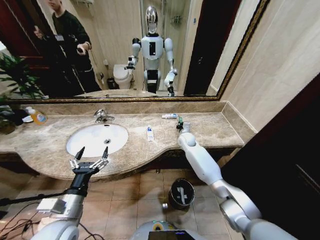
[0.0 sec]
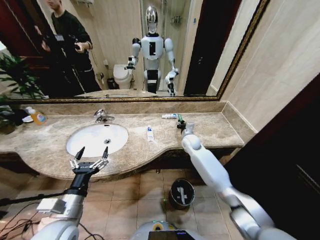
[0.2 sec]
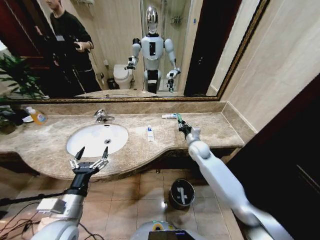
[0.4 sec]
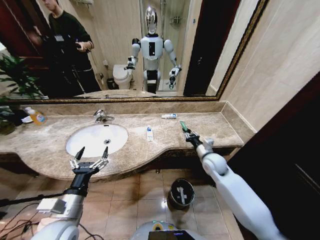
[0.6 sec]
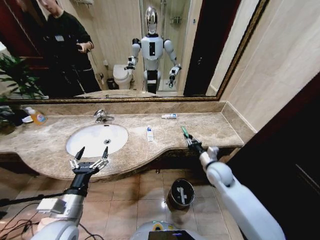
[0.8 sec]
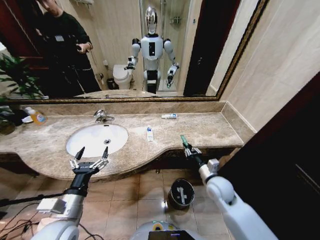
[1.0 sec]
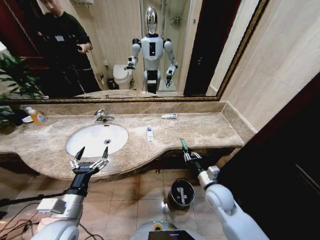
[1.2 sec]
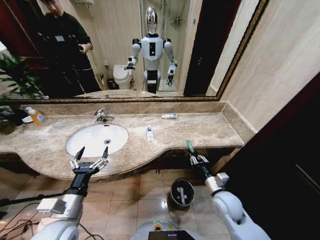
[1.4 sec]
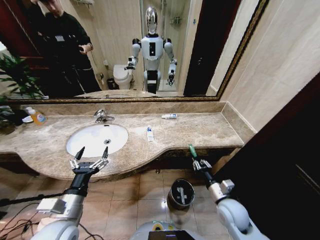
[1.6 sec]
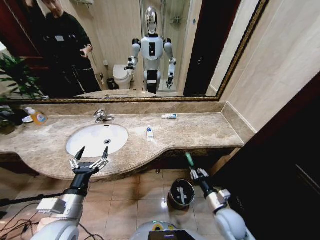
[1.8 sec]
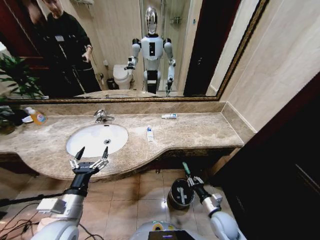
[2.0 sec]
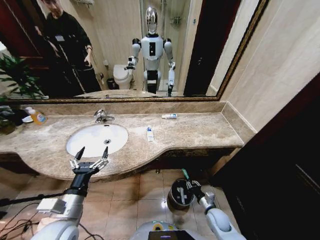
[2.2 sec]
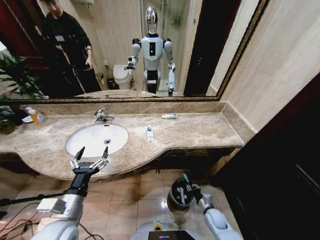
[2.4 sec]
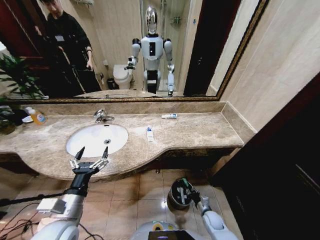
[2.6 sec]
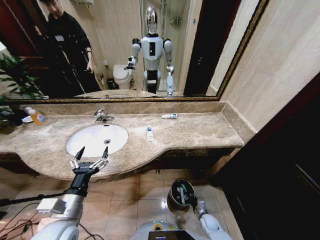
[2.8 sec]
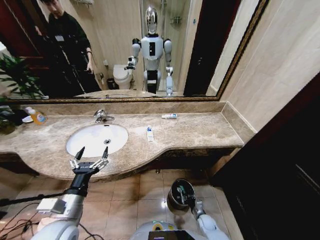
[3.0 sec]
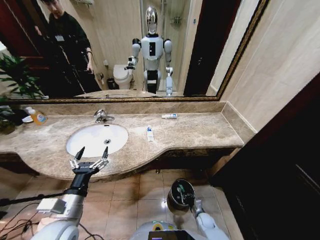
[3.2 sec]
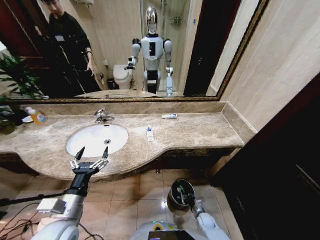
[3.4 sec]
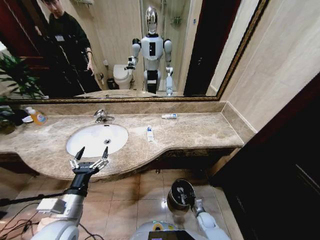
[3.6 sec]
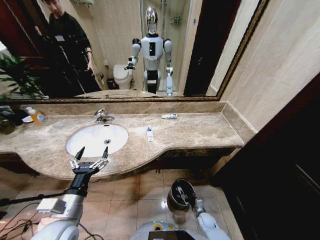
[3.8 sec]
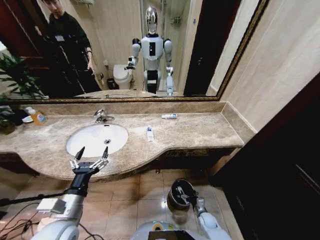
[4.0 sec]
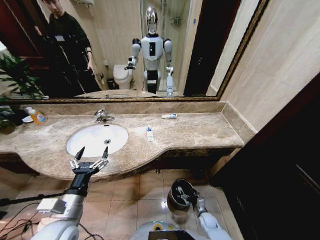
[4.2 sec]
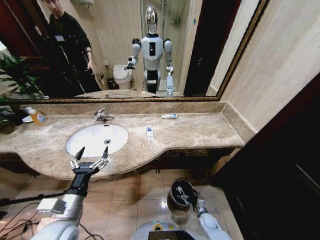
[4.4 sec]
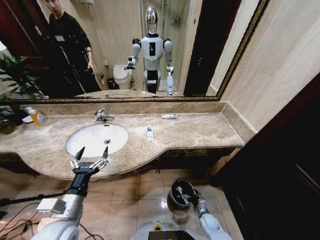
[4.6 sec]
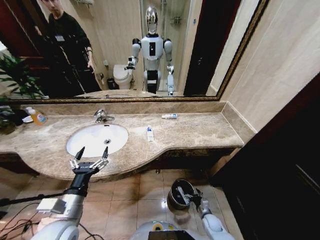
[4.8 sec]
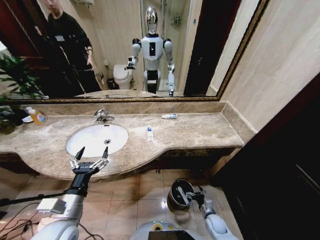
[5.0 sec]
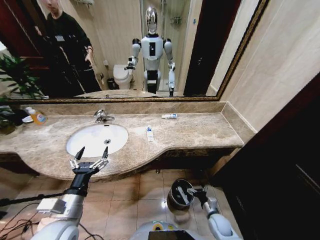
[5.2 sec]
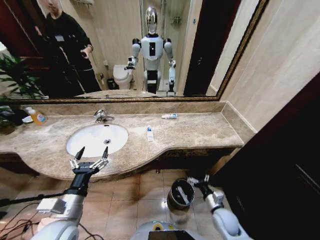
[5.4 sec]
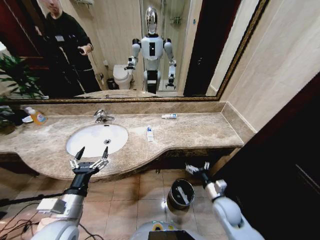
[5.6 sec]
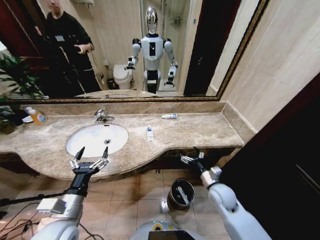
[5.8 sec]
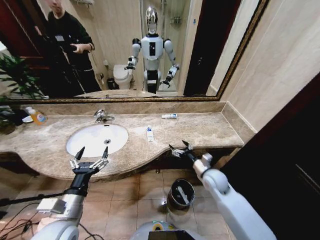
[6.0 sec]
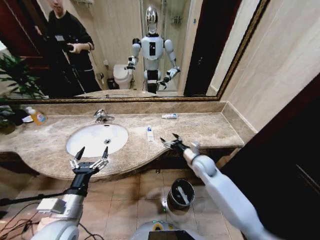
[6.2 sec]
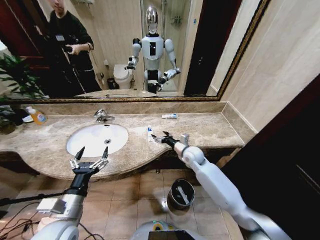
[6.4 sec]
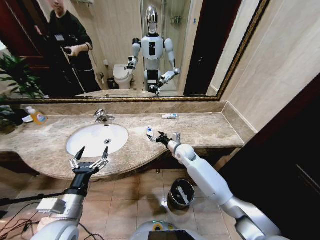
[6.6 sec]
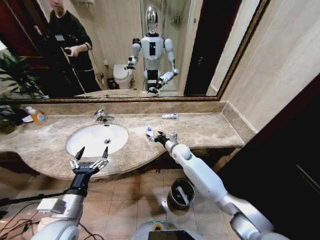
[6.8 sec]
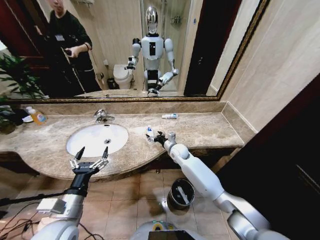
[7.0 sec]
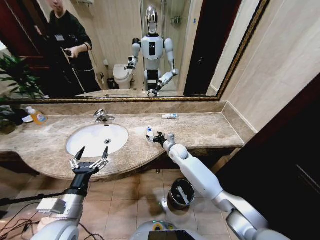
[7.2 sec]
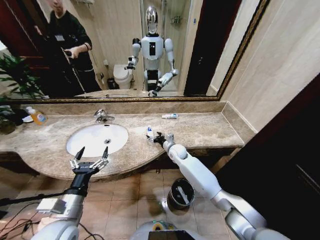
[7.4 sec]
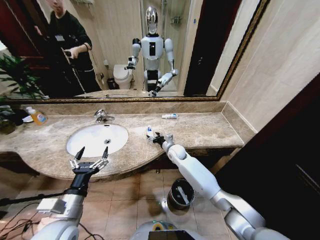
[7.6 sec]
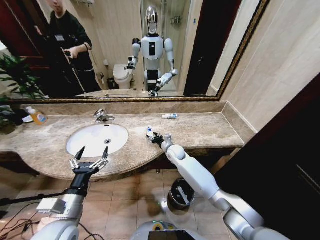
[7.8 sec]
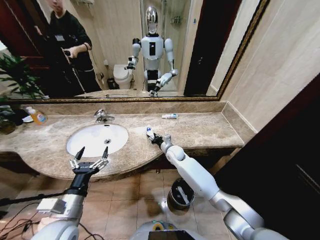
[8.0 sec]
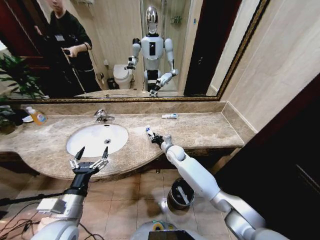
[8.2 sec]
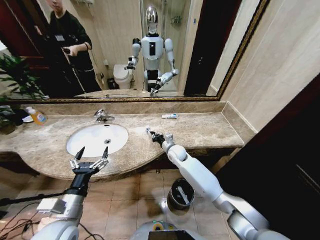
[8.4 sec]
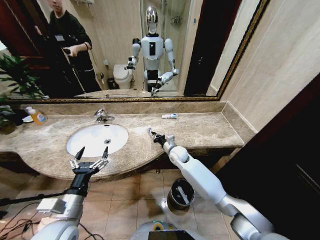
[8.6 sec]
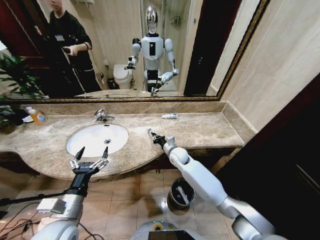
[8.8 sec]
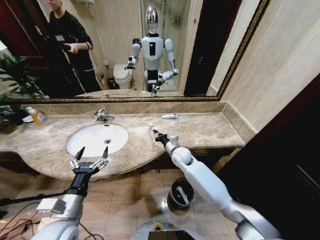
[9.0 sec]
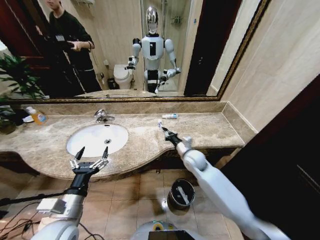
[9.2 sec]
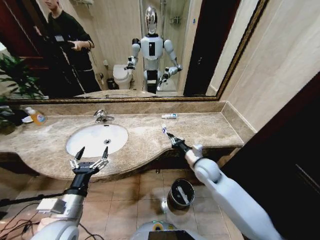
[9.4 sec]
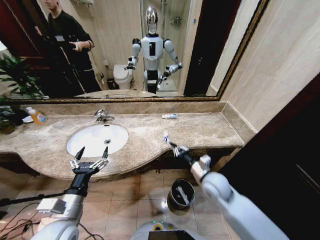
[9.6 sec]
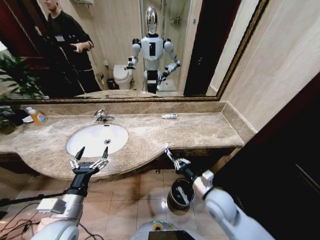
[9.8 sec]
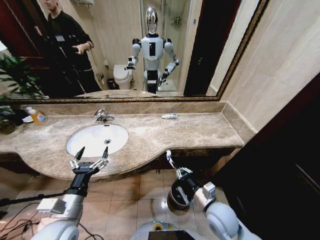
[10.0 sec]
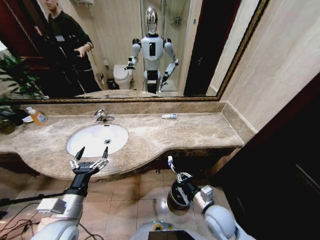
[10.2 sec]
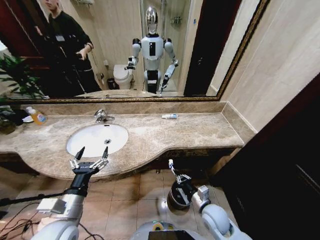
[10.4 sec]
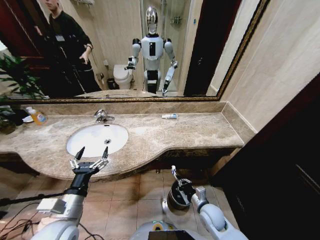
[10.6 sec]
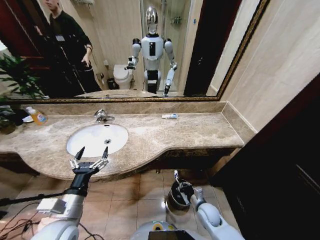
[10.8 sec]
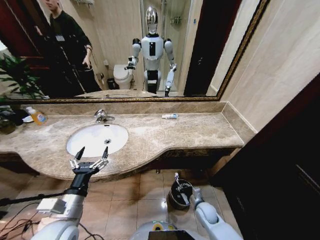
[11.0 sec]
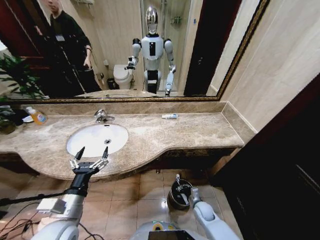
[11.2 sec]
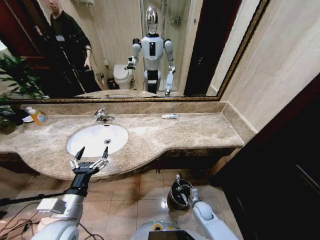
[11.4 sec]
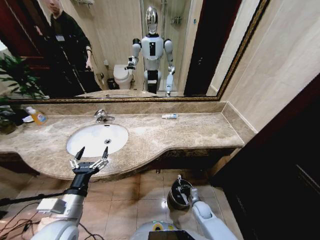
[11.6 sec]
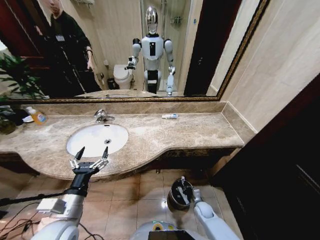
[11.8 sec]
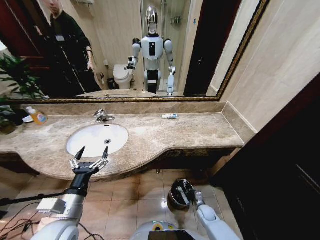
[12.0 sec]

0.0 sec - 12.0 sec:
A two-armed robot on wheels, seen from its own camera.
Task of the whole recording: Pick up the trash from the sink and place it in the trash bin.
0.0 sec - 1.6 sec: The right gripper shifts about 35 cm backward.
1.6 sec - 3.0 sec: The right gripper heads downward, covering about 30 cm.
3.0 sec - 4.4 sec: The right gripper opens.
4.4 sec - 6.0 sec: The right gripper is displaced upward by roughly 30 cm.
6.0 sec - 7.6 sec: The right gripper travels forward and to the left by about 20 cm.
7.6 sec - 9.0 sec: The right gripper changes place by some 5 cm, and closes.
9.0 sec - 10.4 sec: The right gripper travels backward by some 25 cm.
10.4 sec - 12.0 sec: The right gripper heads downward, covering approximately 20 cm.

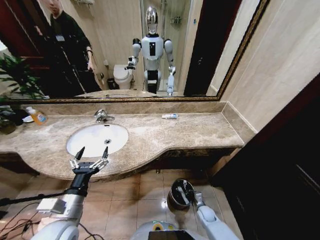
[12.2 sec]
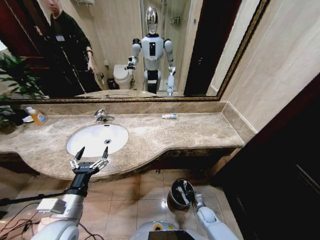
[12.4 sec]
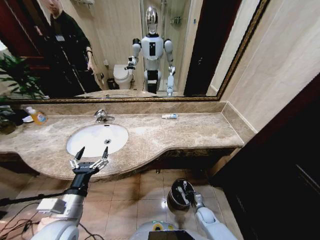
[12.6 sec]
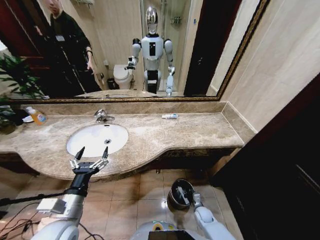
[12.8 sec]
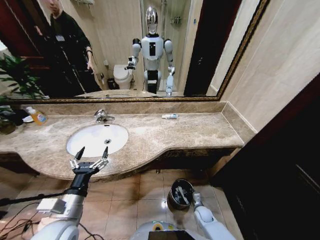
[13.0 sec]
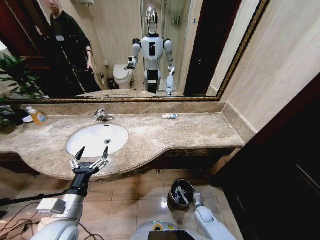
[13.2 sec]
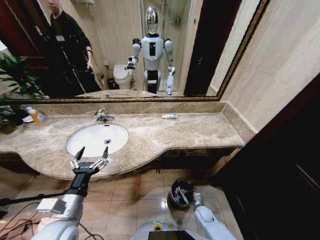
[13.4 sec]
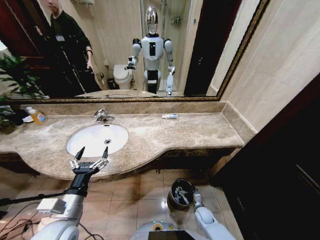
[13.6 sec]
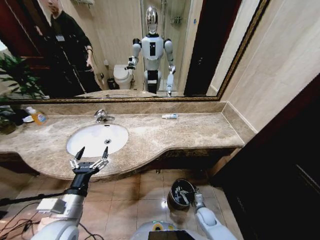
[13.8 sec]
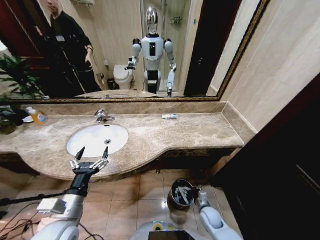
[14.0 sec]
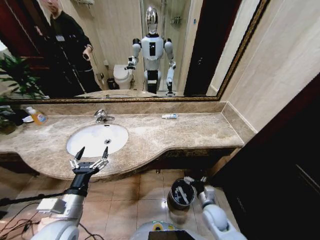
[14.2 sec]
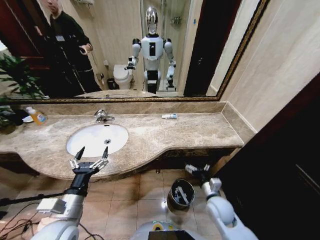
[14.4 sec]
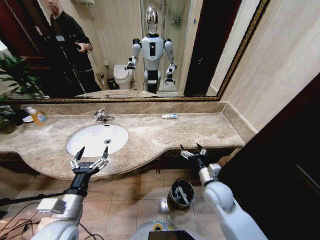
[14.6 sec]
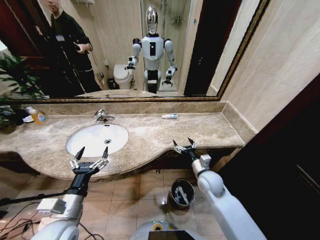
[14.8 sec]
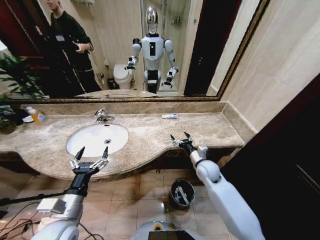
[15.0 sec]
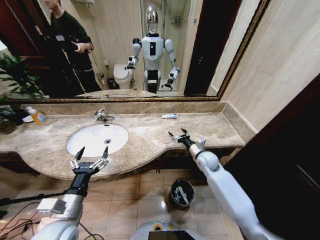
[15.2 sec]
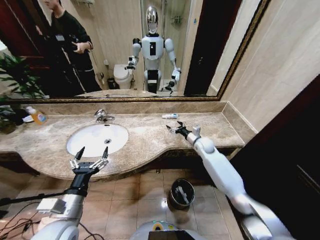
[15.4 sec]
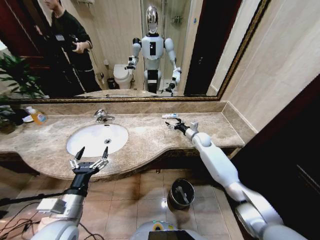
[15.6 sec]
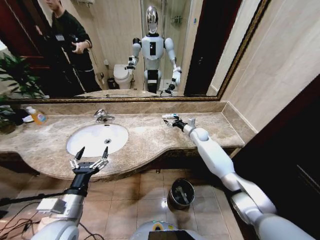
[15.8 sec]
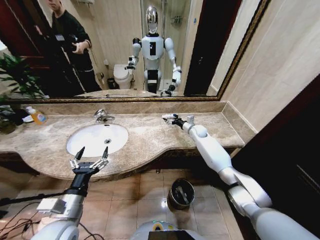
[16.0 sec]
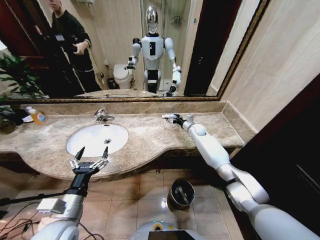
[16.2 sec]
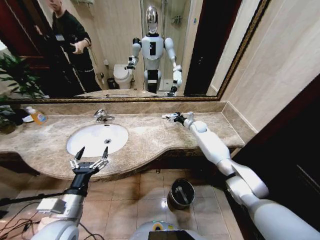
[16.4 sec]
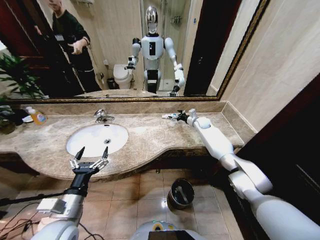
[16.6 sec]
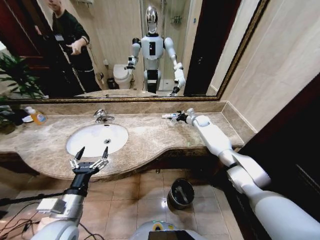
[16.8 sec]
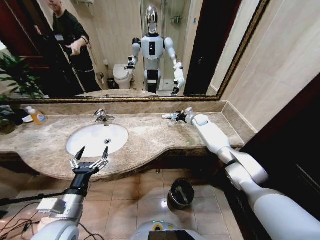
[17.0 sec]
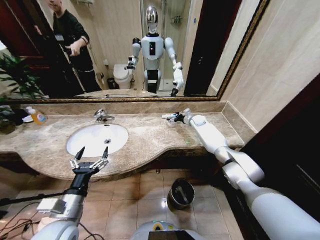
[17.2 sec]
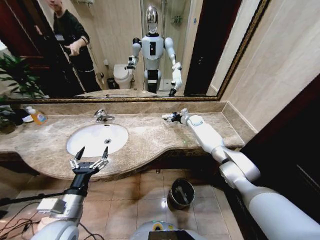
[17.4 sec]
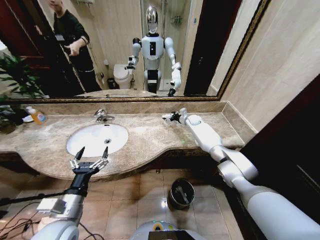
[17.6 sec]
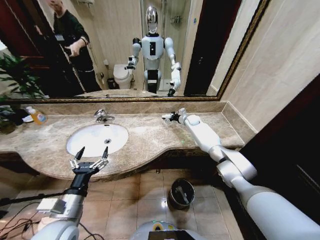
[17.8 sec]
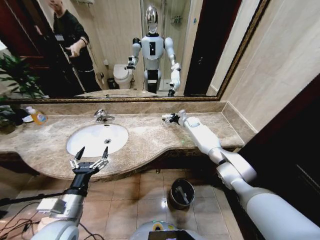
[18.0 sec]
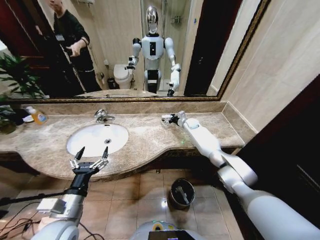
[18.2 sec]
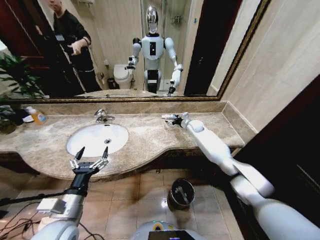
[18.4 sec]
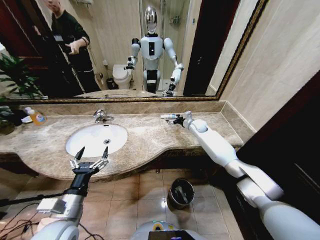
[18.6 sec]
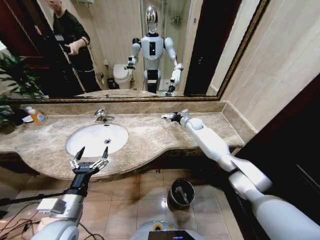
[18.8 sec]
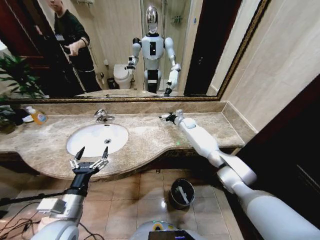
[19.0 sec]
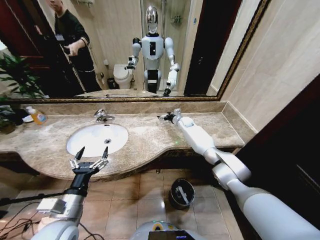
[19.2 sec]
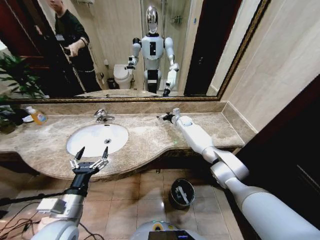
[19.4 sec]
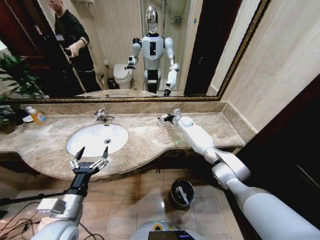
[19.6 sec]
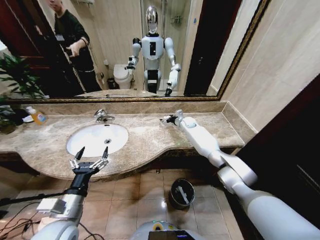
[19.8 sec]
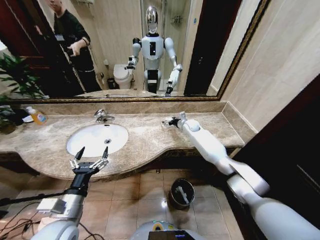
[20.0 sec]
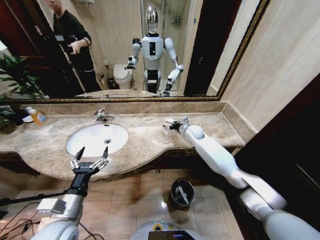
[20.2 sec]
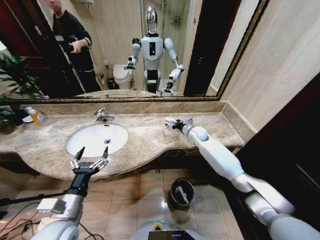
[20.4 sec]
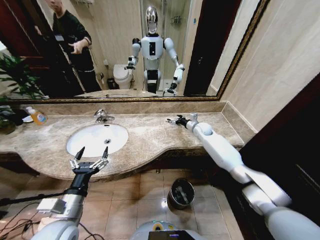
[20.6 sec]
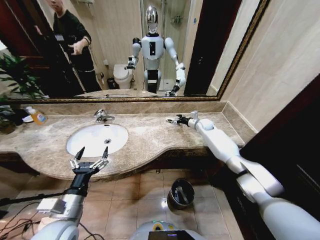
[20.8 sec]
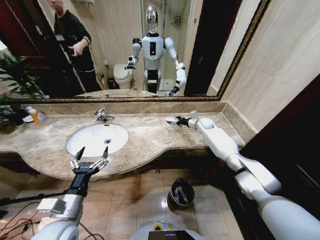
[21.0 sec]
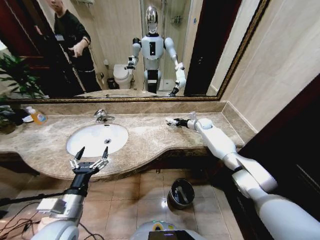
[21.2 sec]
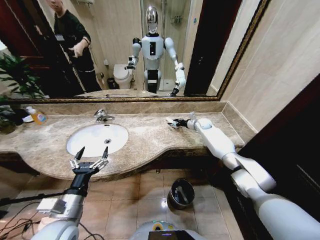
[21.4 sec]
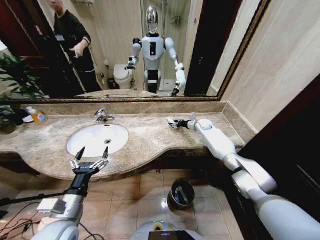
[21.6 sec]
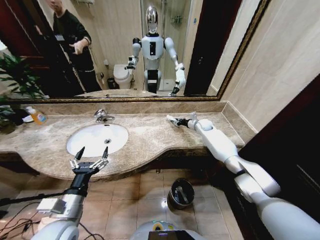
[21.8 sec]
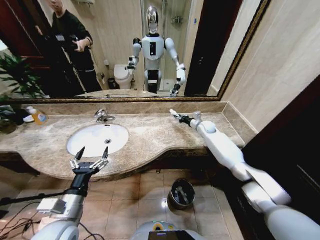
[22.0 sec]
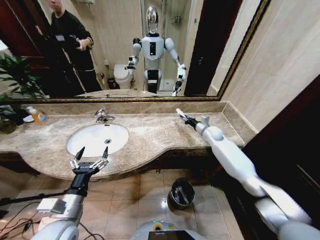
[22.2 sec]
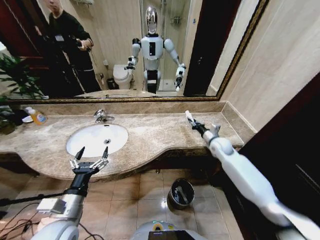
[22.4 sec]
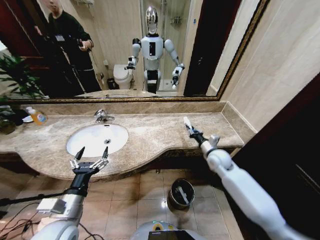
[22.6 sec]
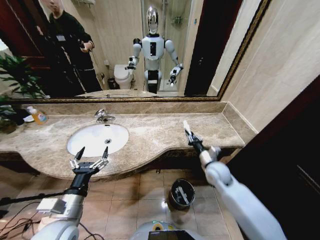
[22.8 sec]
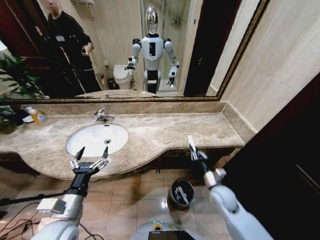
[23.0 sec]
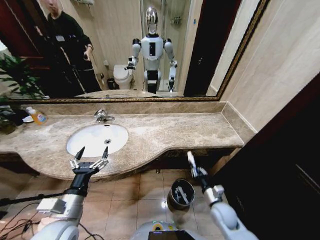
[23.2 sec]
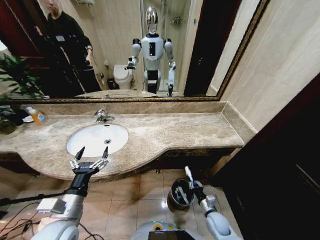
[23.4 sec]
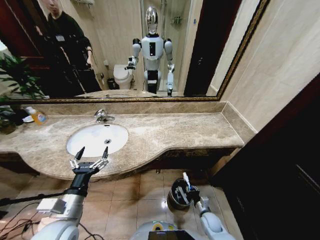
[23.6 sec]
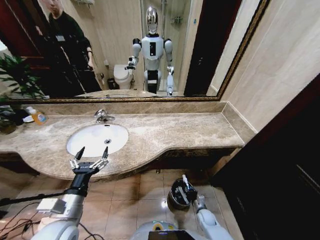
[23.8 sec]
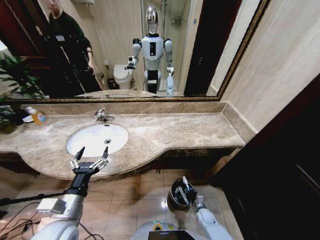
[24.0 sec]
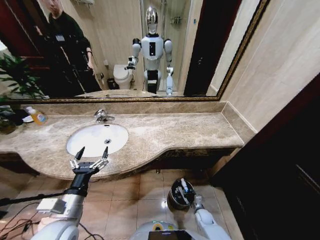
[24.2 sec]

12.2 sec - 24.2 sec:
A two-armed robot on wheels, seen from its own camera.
Task of the whole recording: Pick up the trash from the sink and place it in the trash bin.
12.2 sec - 13.8 sec: The right gripper opens.
13.8 sec - 15.2 sec: The right gripper heads upward and forward, covering roughly 35 cm.
15.2 sec - 16.6 sec: The right gripper heads forward, covering approximately 20 cm.
16.6 sec - 18.2 sec: The right gripper heads to the left, covering some 5 cm.
19.8 sec - 21.2 sec: The right gripper travels to the right by approximately 10 cm, and reaches some 10 cm backward, then returns.
21.2 sec - 22.6 sec: The right gripper heads backward, covering some 25 cm, and closes up.
22.6 sec - 24.2 sec: The right gripper moves downward and backward, roughly 40 cm.
